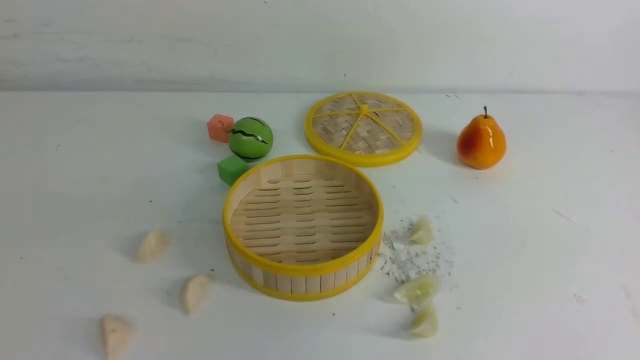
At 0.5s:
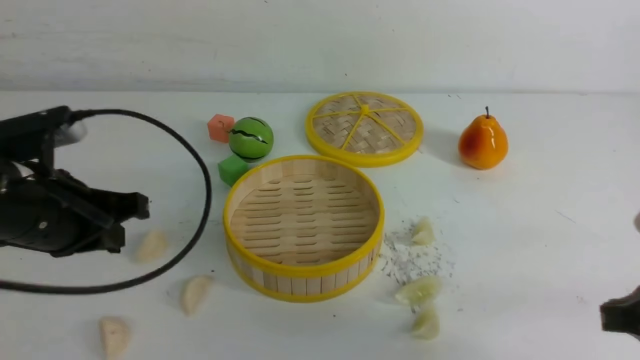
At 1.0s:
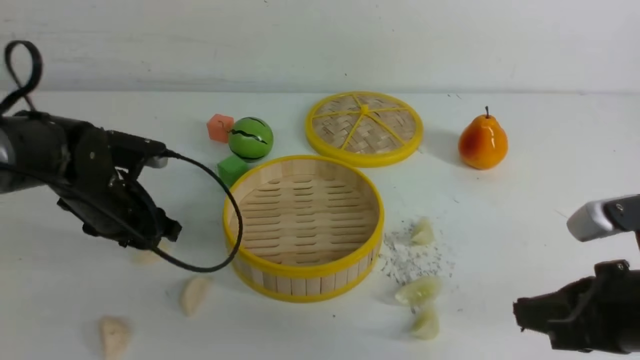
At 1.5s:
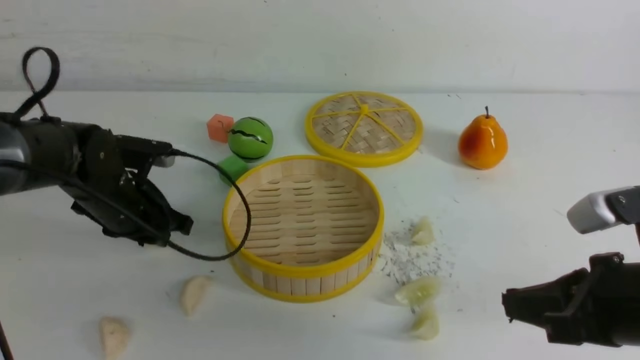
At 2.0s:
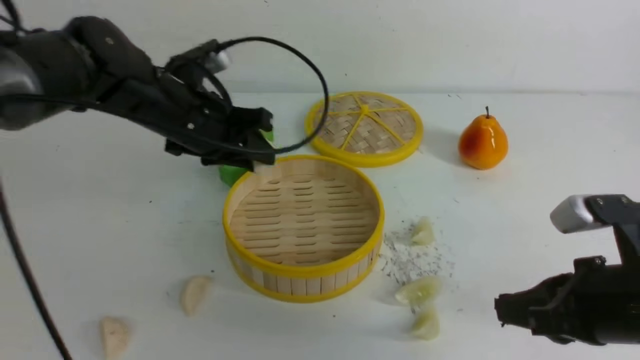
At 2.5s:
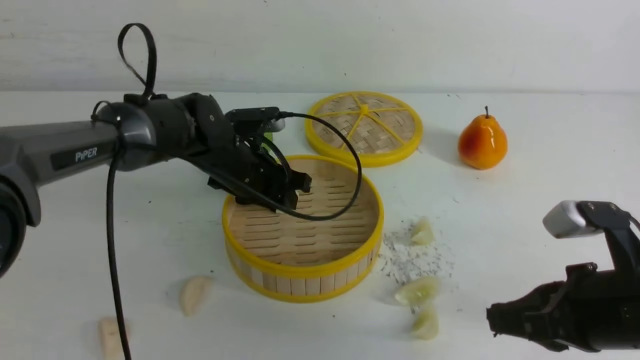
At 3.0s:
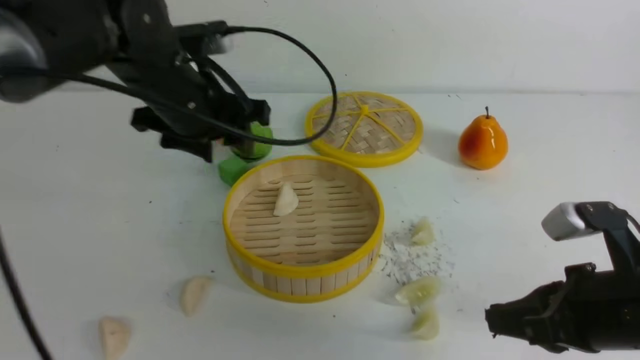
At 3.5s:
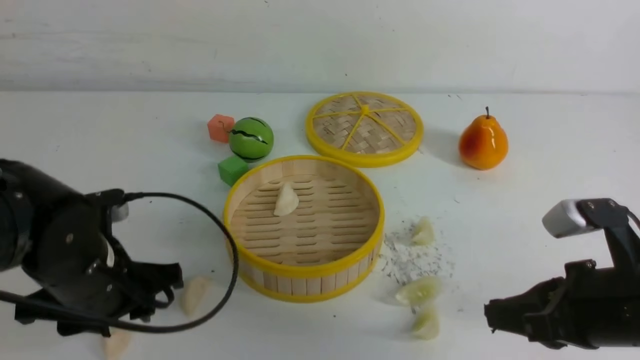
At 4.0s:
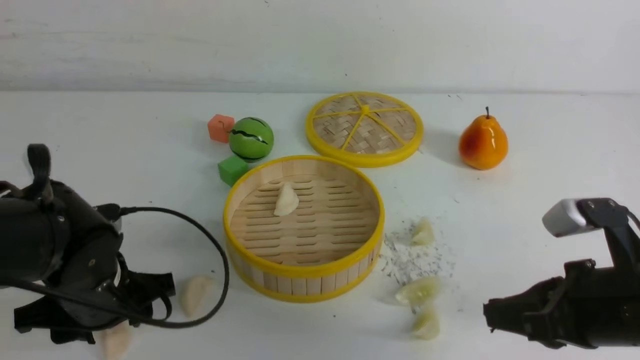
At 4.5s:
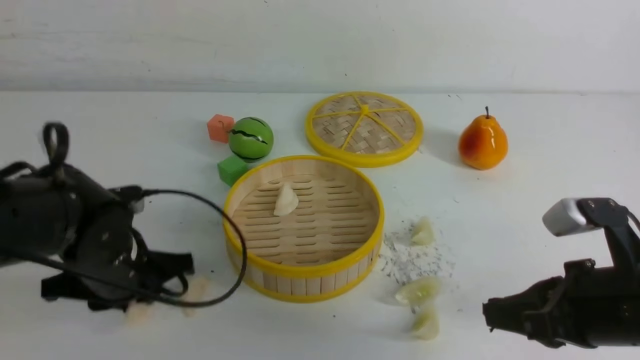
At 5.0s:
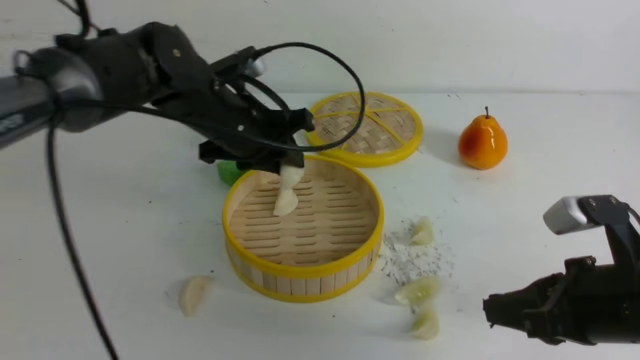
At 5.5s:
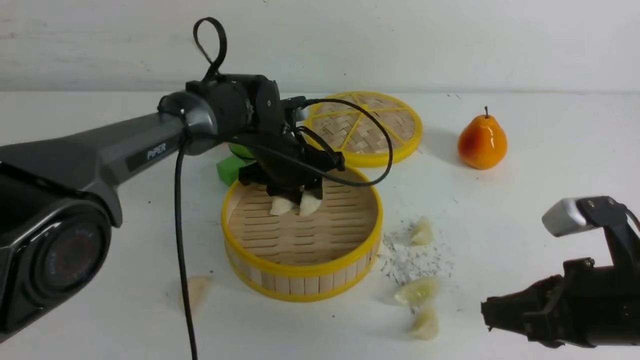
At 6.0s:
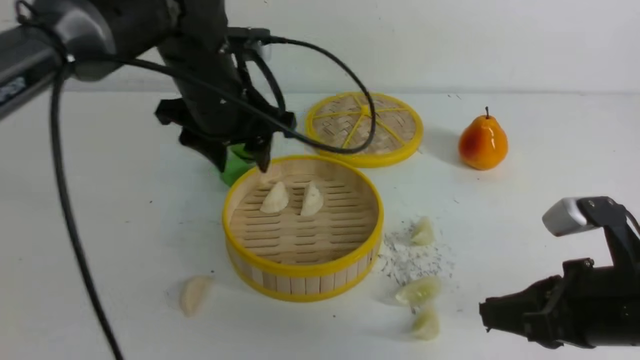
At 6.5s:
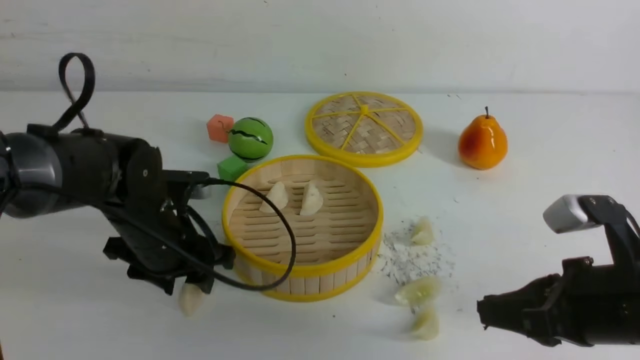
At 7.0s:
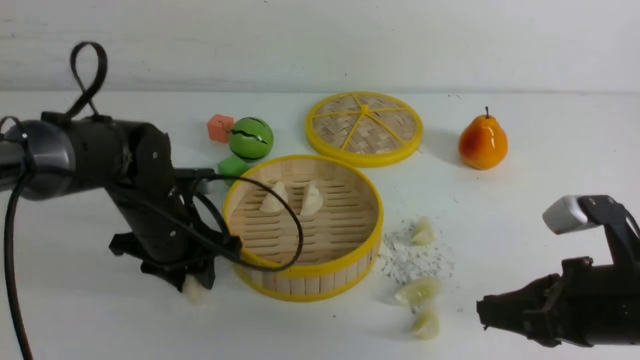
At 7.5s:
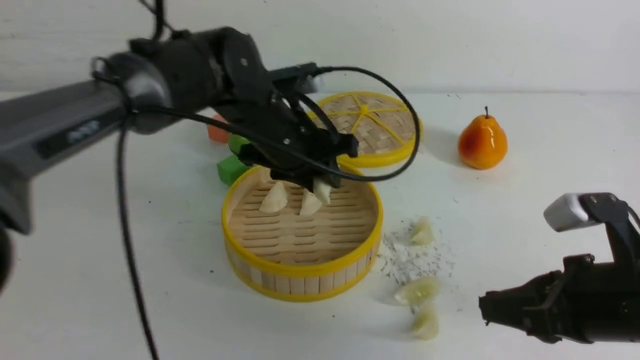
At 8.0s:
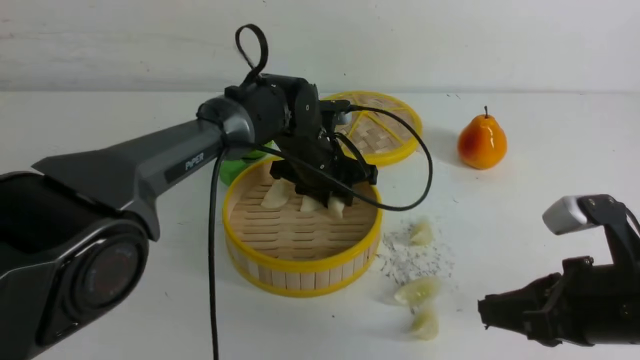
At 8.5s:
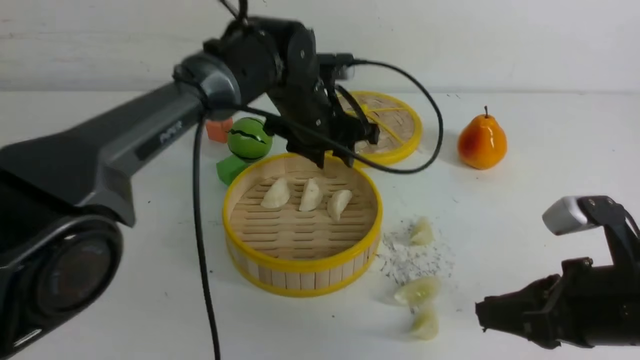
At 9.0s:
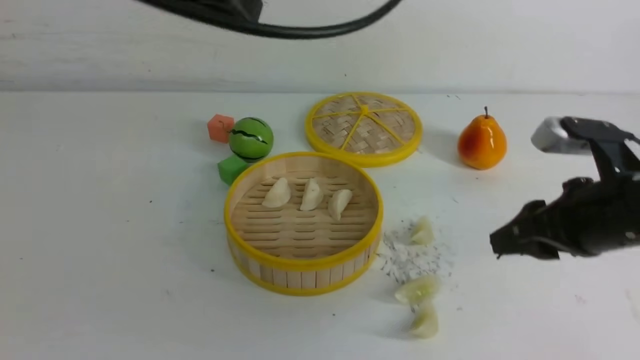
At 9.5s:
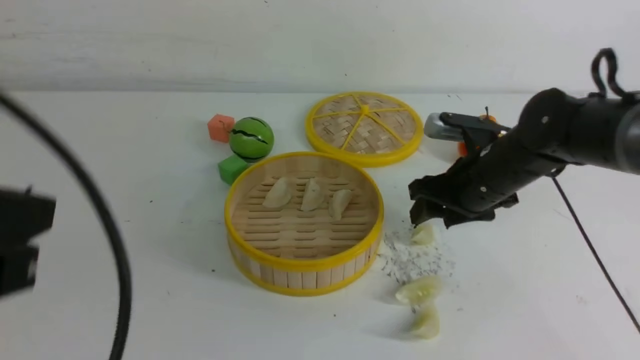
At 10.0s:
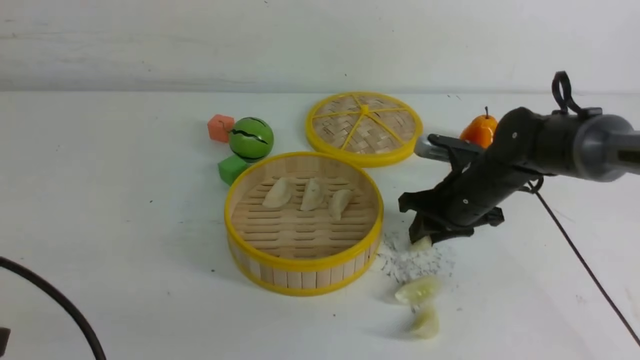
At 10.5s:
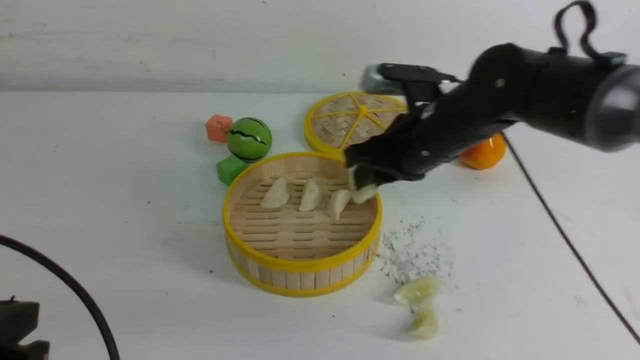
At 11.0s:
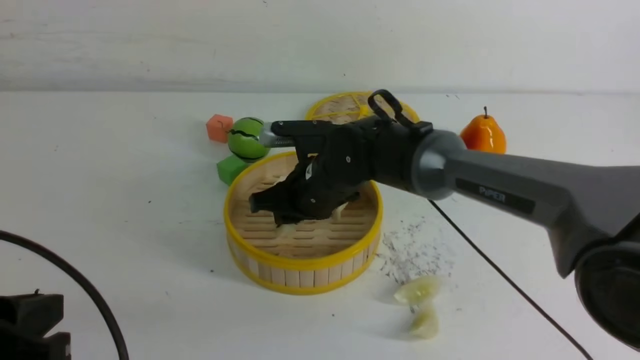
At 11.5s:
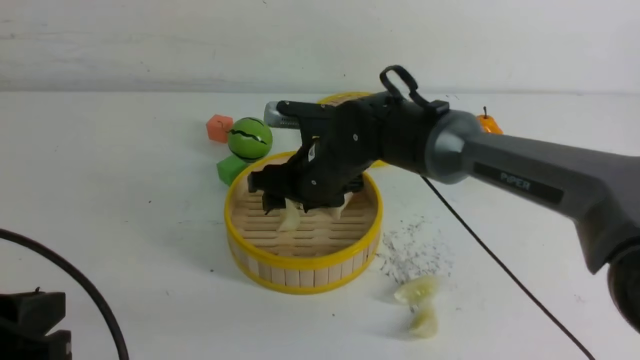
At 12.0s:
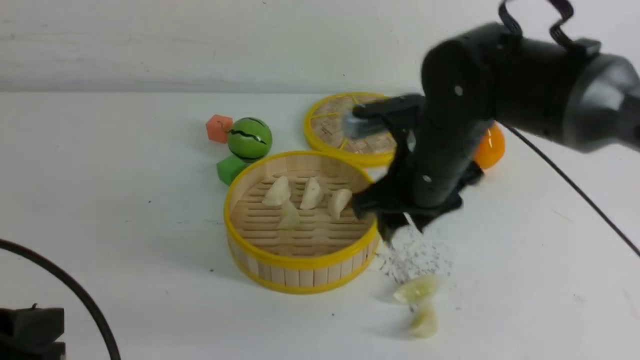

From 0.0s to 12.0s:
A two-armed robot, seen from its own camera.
Task of the whole recording: put the dumplings into the steamer on the white table.
Step, from 2.0s to 2.5s: use the left arm to put the dumpling into the steamer.
Step, from 3.0s to 4.0s: use the left arm to grab a dumpling.
Step, from 5.0s to 5.5s: use the left arm to put the dumpling into the steamer.
Step, from 6.0s to 6.5s: use the left arm to grab a dumpling.
Step, from 7.5s to 8.0s: use the left arm to put the dumpling into the steamer.
Step, from 8.5s to 10.0s: use the right arm to grab a dumpling.
Step, from 10.5s to 11.0s: use the right arm to put the dumpling into the steamer.
From 0.0s to 2.0s: The left gripper moves forward, roughly 30 cm, and opens its fingers, while the right gripper travels forward, downward and to the left by some 15 cm.
From 2.0s to 4.0s: The left gripper goes about 20 cm backward, downward and to the left, and opens up.
From 4.0s to 6.0s: The left gripper goes approximately 20 cm forward, upward and to the right, and closes, then reopens.
From 6.0s to 8.0s: The left gripper shifts roughly 15 cm to the right, downward and forward.
From 8.0s to 10.0s: The right gripper moves forward, roughly 20 cm, and opens its fingers. Meanwhile the left gripper is displaced backward and to the left by approximately 40 cm, and closes up.
From 10.0s to 12.0s: The right gripper heads to the left, backward and upward, covering approximately 15 cm, and opens.

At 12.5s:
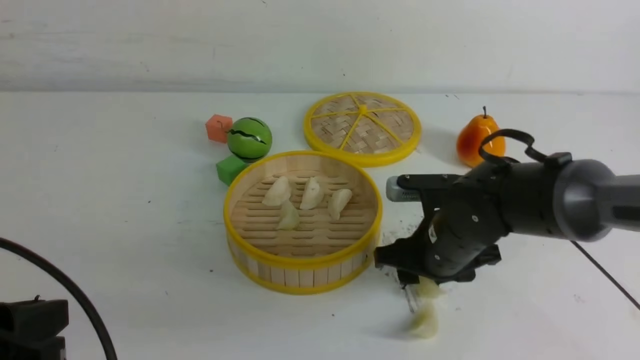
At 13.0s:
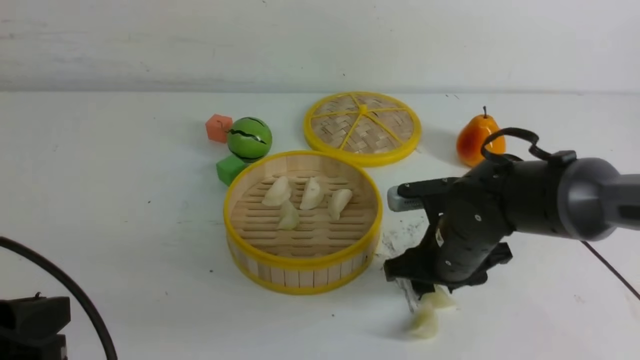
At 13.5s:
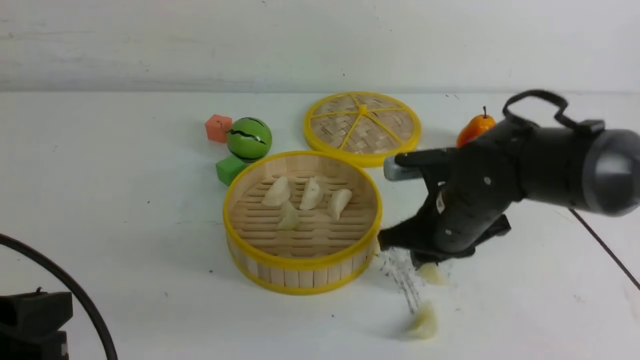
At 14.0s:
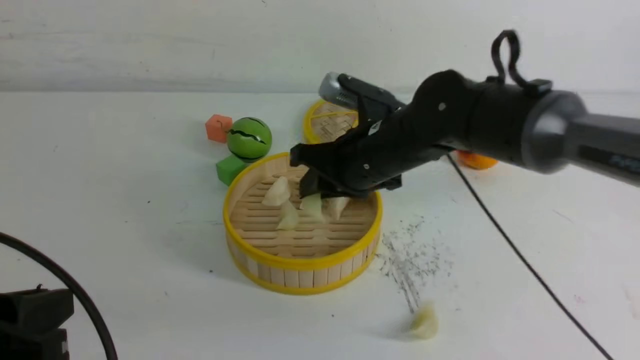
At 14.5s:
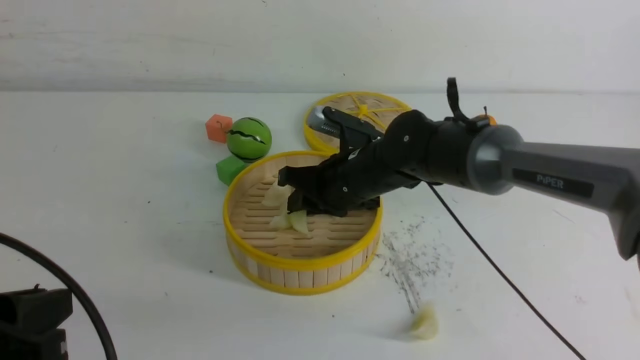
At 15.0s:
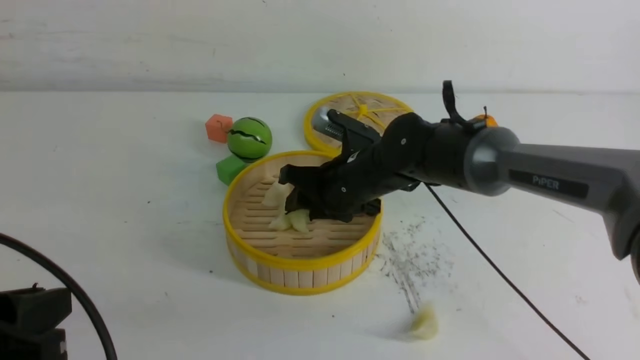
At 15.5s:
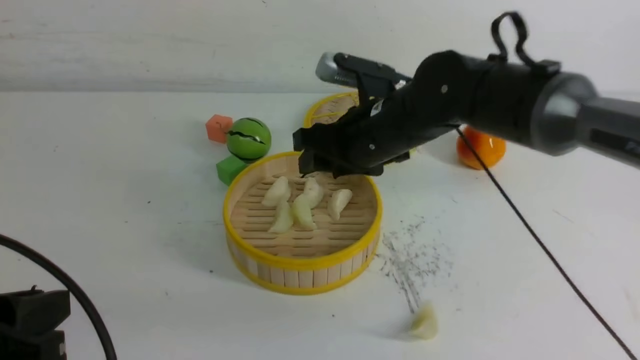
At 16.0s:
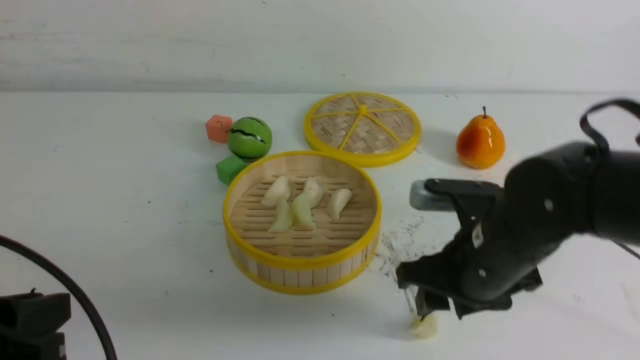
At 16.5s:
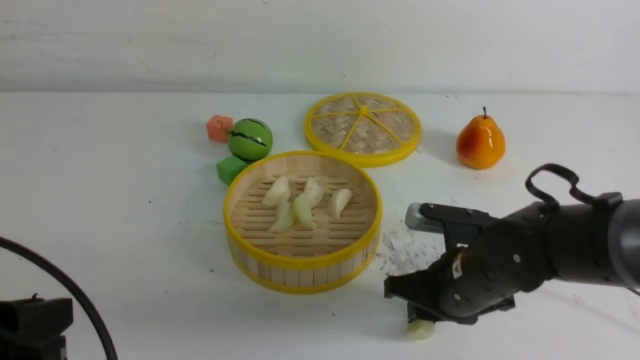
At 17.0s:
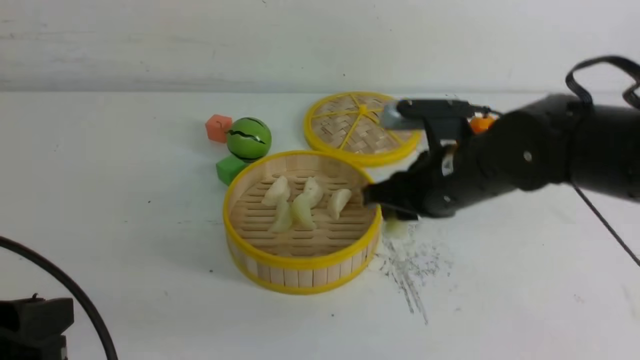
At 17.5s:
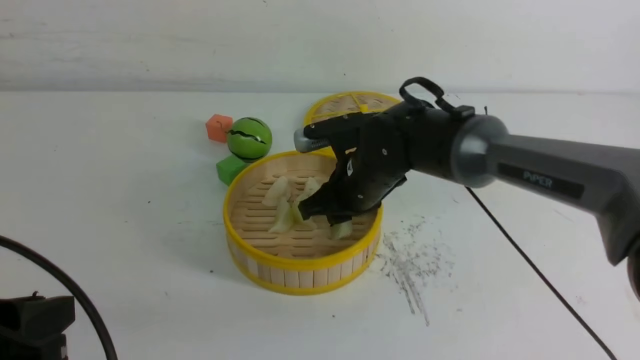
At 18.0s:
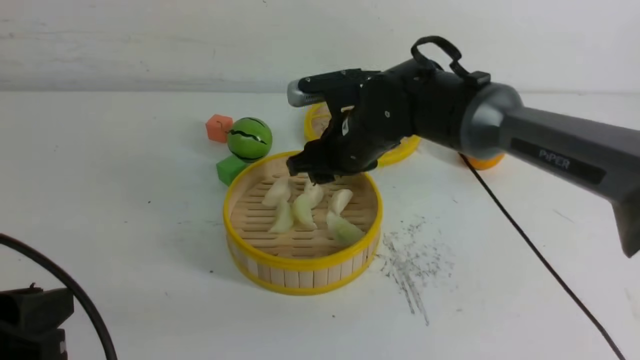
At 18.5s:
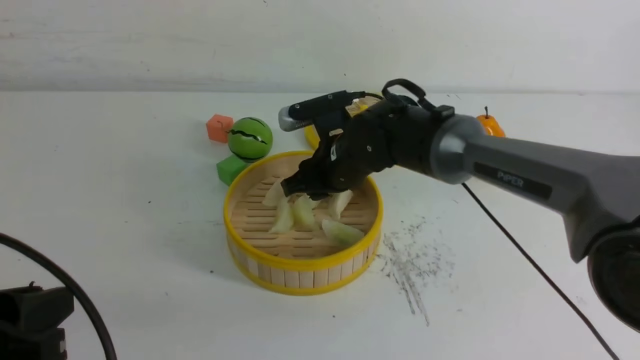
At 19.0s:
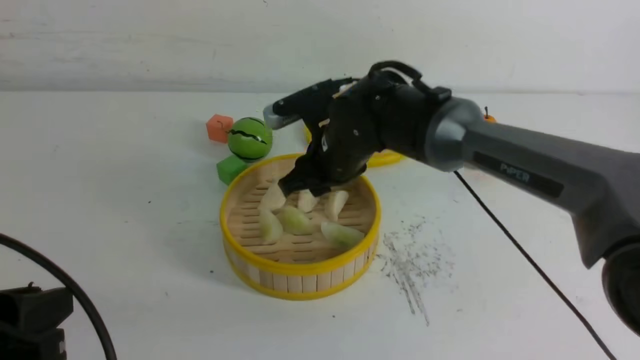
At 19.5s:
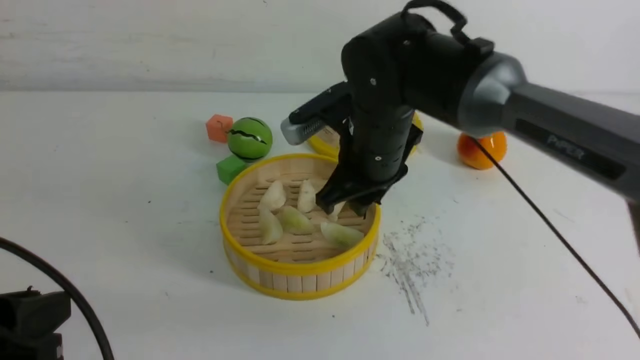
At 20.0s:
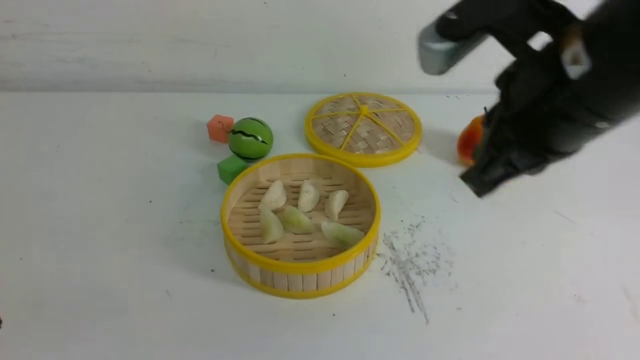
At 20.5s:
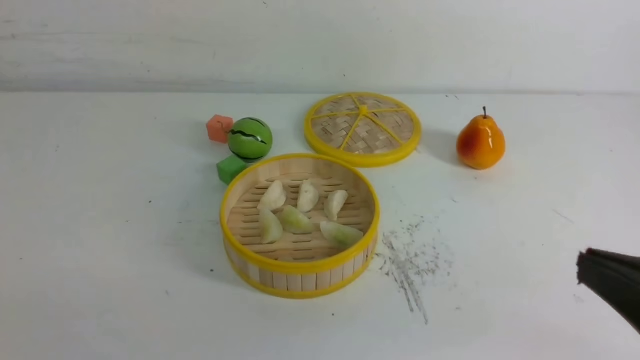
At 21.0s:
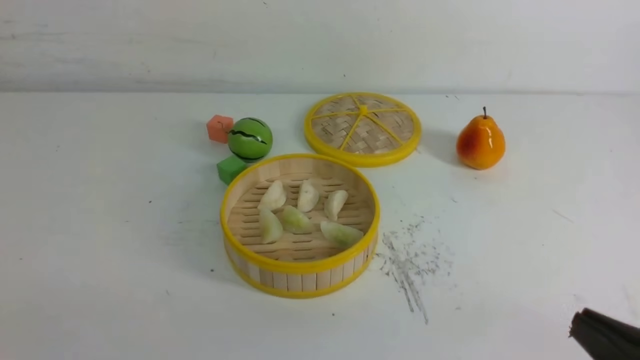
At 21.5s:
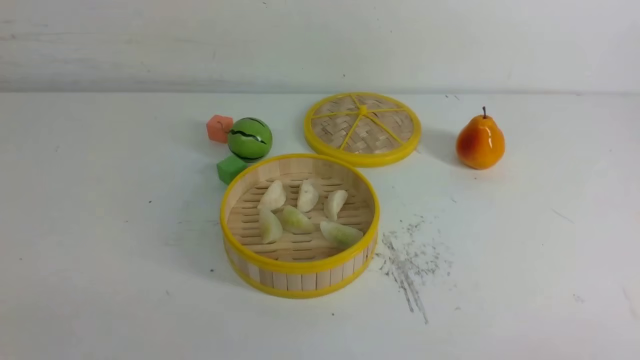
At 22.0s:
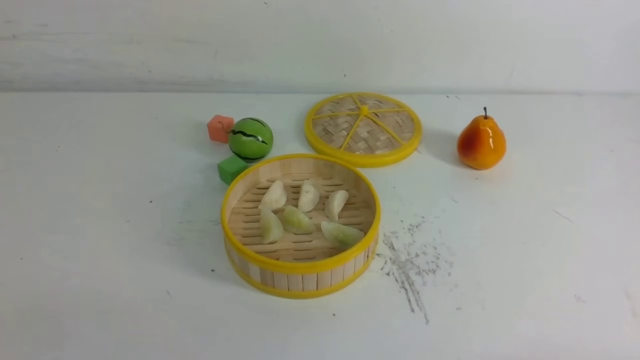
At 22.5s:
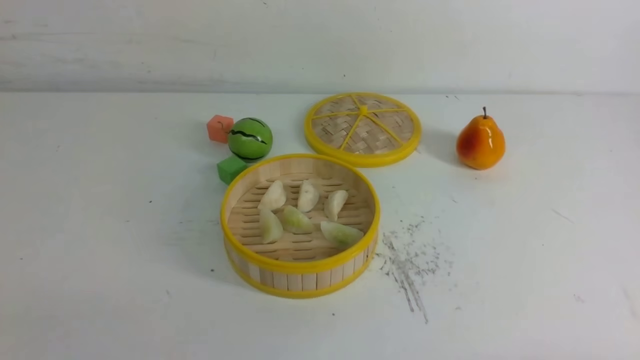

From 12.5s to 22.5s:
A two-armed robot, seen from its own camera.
Task of the whole recording: put the dumplings into the steamer on the white table.
Step, from 13.5s to 15.0s: use the right arm to put the dumpling into the steamer.
Step, from 15.5s to 16.5s: use the right arm to grab a dumpling.
Step, from 17.0s to 17.5s: use the right arm to put the dumpling into the steamer.
From 12.5s to 14.5s: The right gripper travels to the left and forward by some 10 cm, and closes up.
From 14.5s to 16.5s: The right gripper is displaced backward and to the right by approximately 15 cm.
From 16.5s to 18.5s: The right gripper goes roughly 20 cm forward and to the left.
From 18.5s to 20.5s: The right gripper heads backward and to the right, covering some 40 cm, and closes up; the left gripper moves backward, some 5 cm, and closes.
From 20.5s to 22.5s: The right gripper goes some 15 cm downward and to the right.
